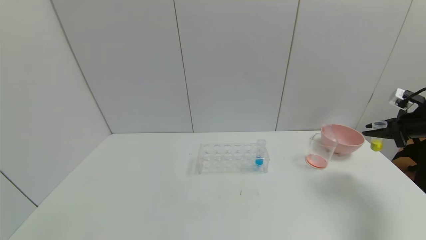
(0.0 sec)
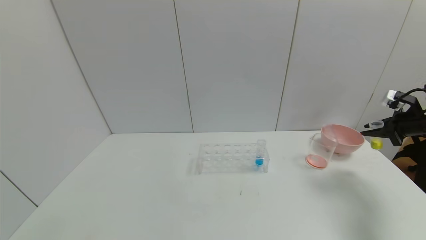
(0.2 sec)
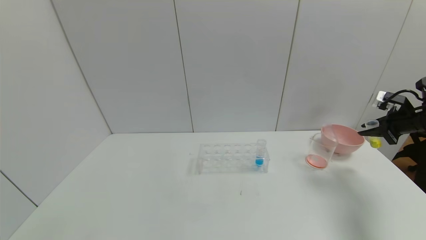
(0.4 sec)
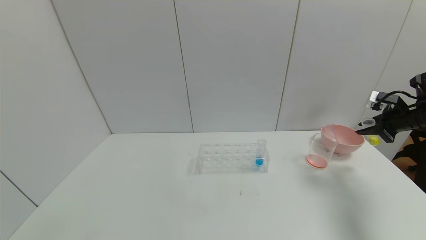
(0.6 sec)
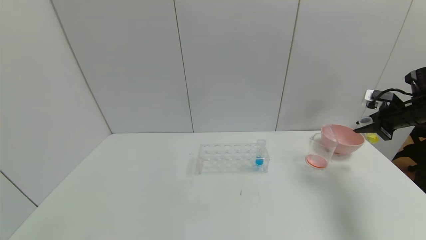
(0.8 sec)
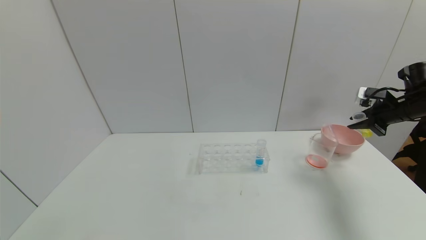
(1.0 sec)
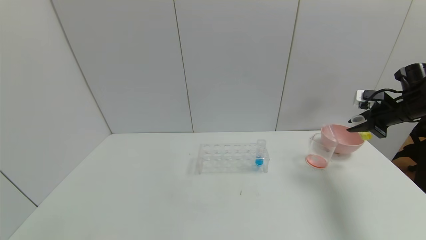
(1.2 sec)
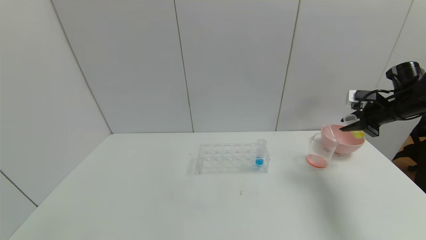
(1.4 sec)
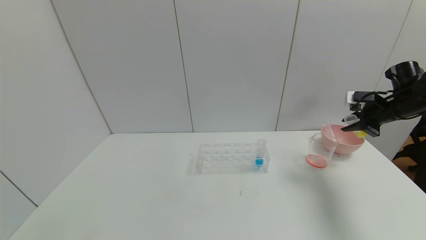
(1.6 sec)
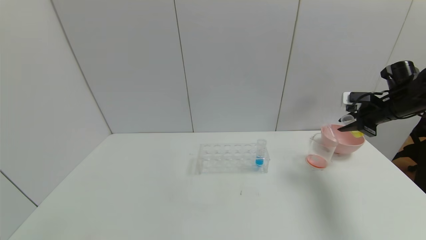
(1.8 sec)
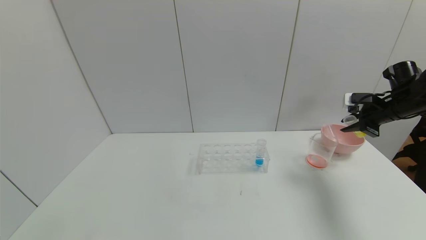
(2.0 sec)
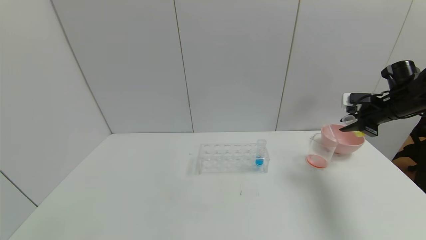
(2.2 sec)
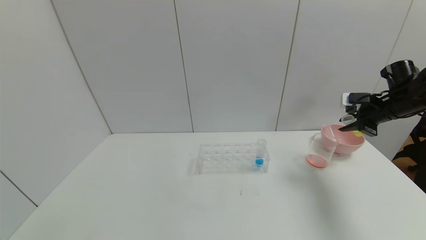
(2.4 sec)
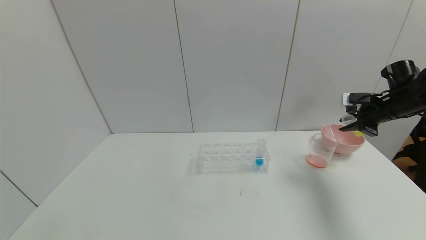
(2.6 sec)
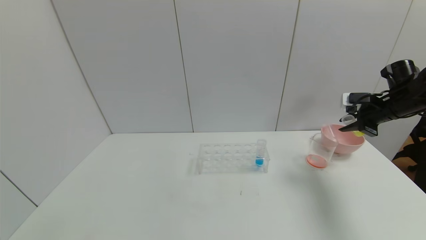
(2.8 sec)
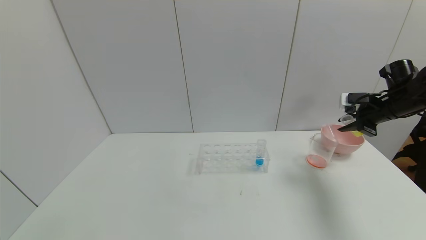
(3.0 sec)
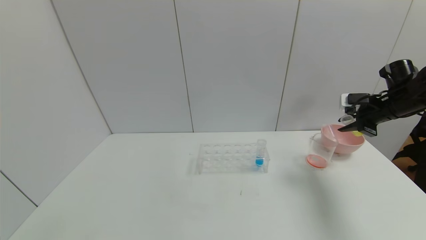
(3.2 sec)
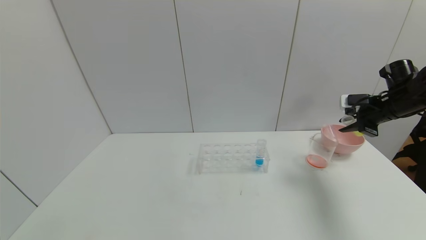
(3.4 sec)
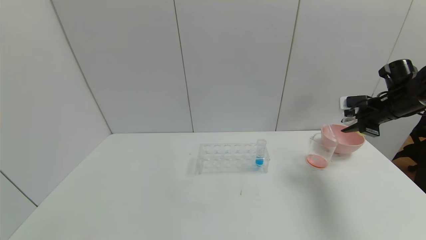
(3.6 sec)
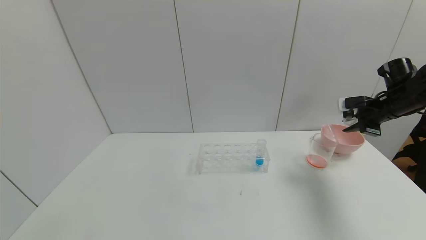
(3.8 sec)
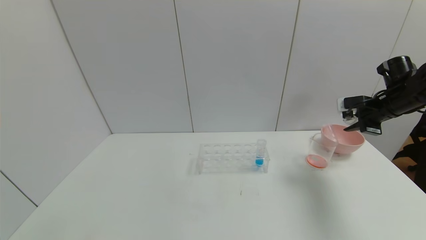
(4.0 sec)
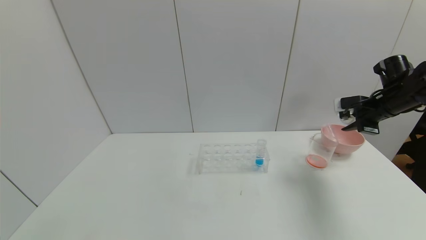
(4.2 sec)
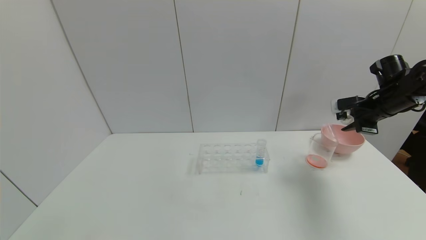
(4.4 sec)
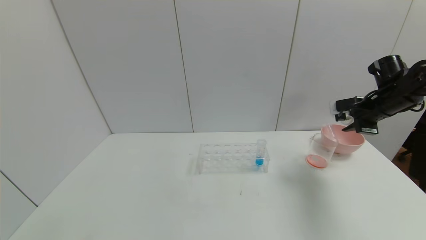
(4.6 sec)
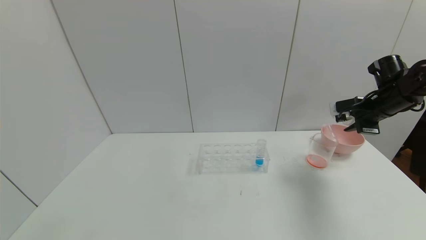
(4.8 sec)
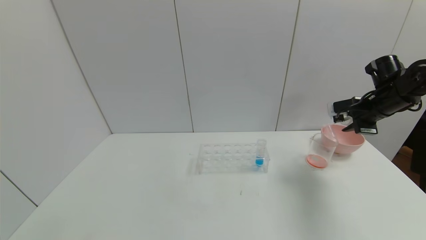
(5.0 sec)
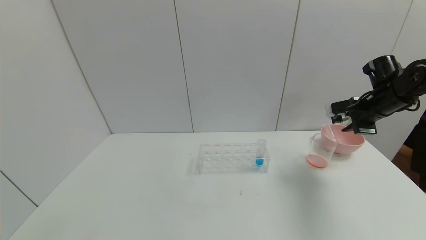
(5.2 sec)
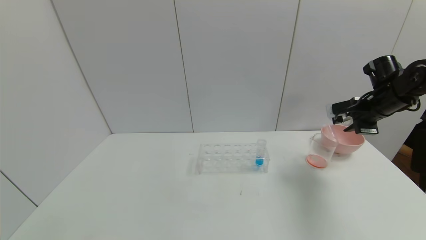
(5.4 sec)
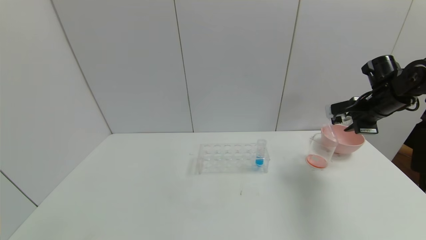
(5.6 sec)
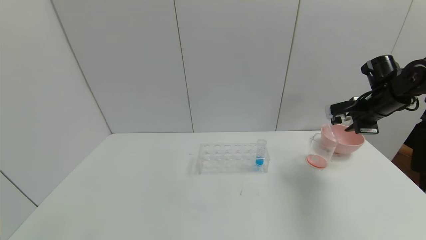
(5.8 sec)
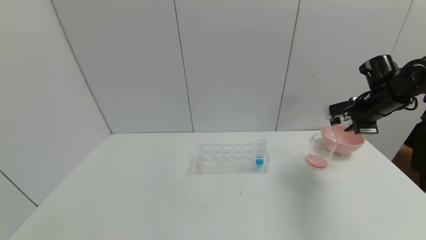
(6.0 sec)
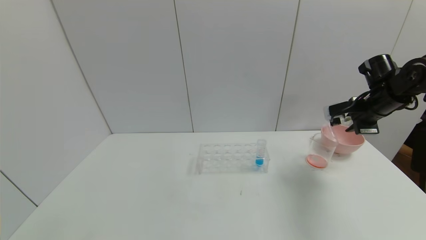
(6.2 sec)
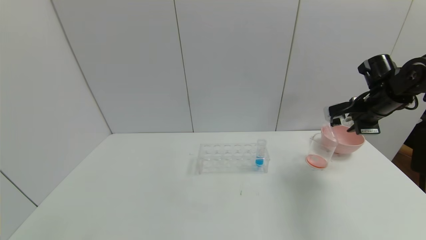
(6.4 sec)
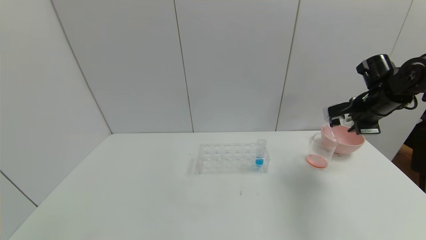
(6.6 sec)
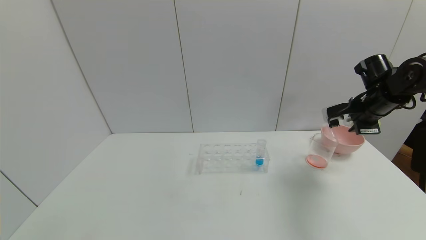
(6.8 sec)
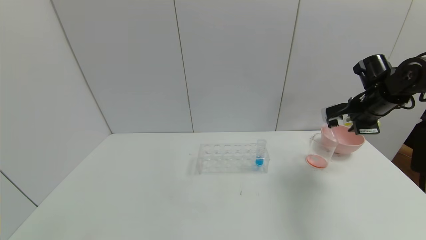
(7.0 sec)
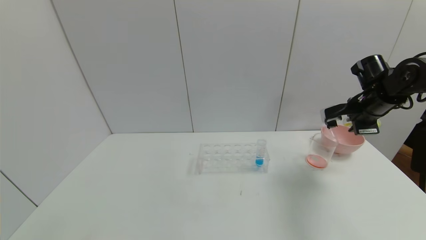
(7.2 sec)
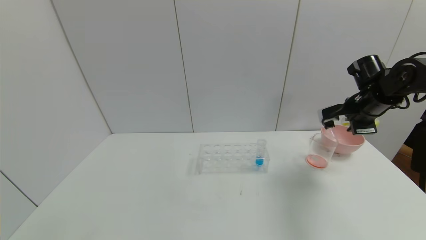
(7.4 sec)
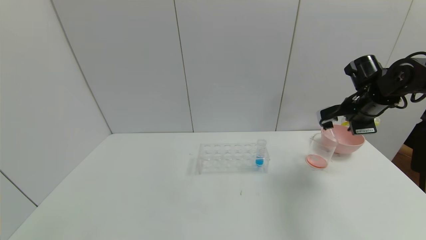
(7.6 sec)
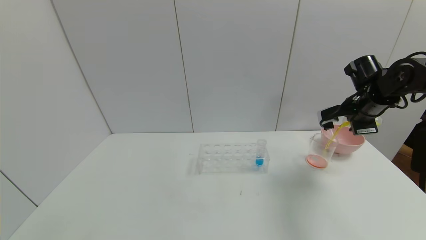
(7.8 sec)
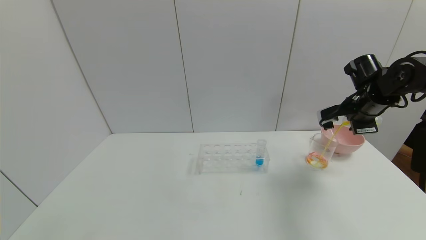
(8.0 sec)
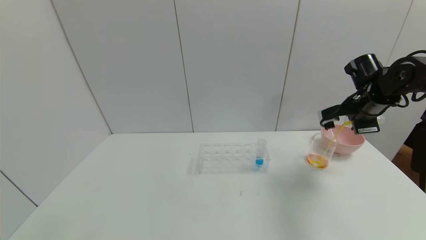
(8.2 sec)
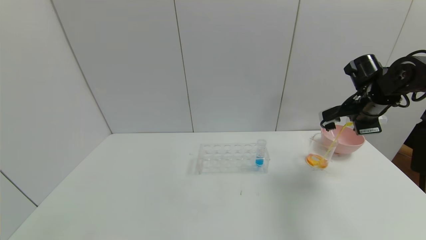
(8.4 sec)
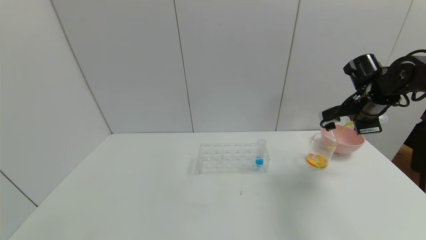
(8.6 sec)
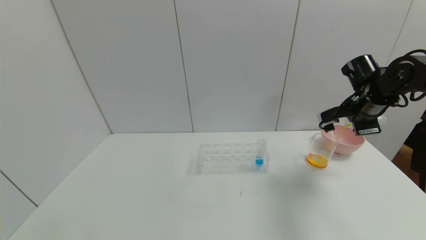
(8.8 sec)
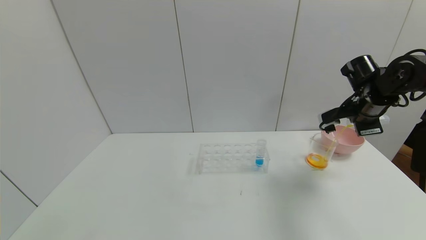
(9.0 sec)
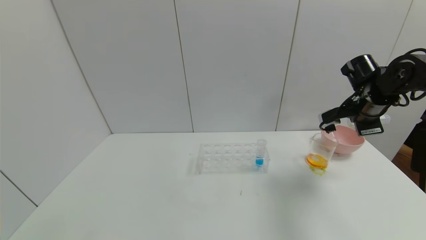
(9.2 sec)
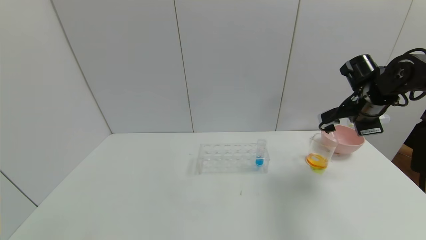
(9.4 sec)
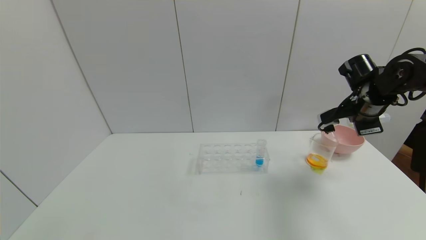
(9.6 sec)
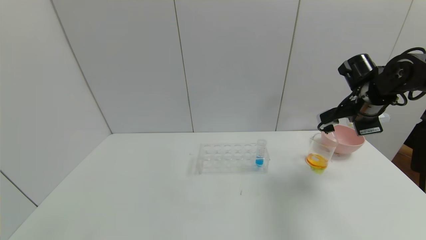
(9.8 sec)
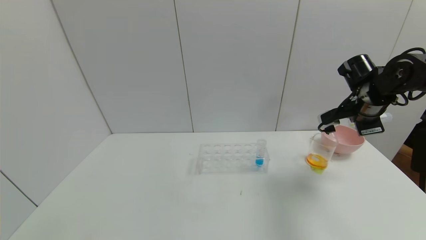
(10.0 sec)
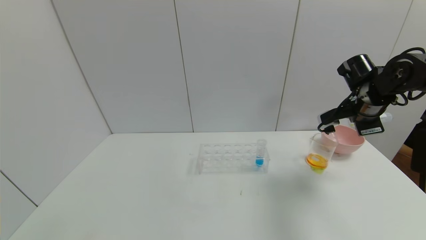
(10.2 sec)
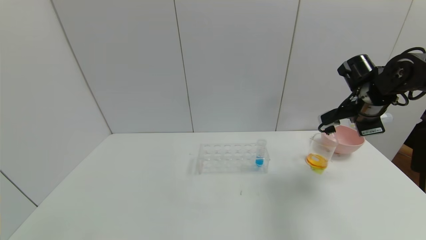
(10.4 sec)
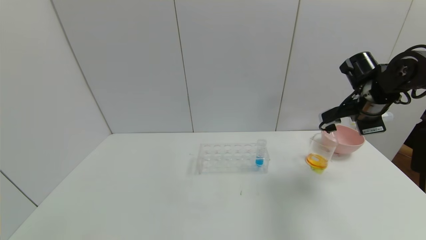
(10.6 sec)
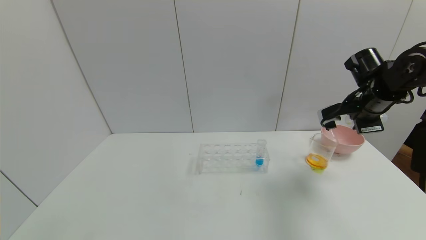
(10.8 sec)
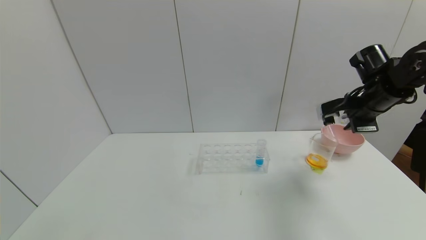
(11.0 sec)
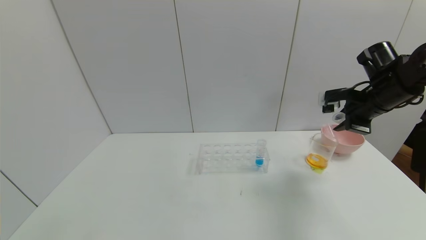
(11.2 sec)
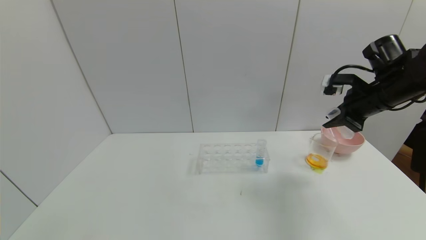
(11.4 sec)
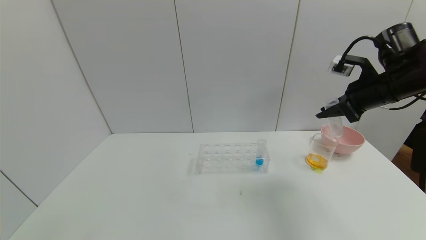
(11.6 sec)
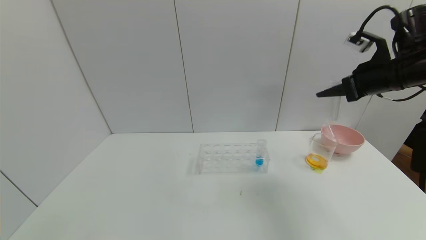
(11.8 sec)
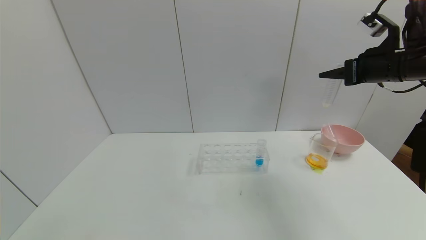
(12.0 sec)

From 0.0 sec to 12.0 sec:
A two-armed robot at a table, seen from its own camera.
Task of the whole recording: pick up the test tube with yellow pigment and the test tube with red pigment by grippers and pour them into the beaker.
Step, from 0.0 sec to 9.4 sec: Pour the yellow reagent into the graduated cylinder with the right gripper.
From 0.0 sec to 1.6 sec: The right gripper heads to the left and forward, covering some 10 cm.
From 1.6 sec to 3.0 sec: Both grippers stay about where they are.
From 3.0 sec to 4.4 sec: The grippers move only a little.
From 4.4 sec to 6.0 sec: The grippers stay close to where they were, moving slightly.
From 6.0 sec to 9.0 sec: There are only small adjustments of the grippers.
From 9.0 sec to 10.4 sec: Both grippers stay put.
From 10.4 sec to 12.0 sec: The right gripper goes some 10 cm upward.

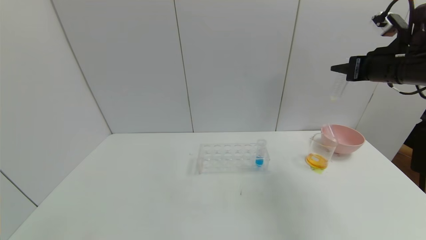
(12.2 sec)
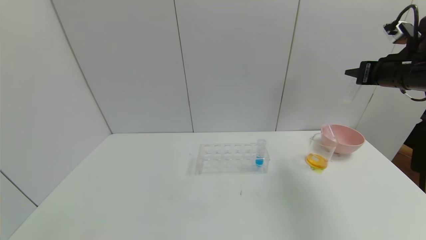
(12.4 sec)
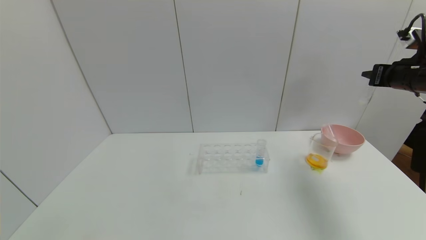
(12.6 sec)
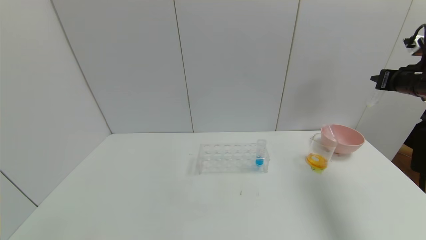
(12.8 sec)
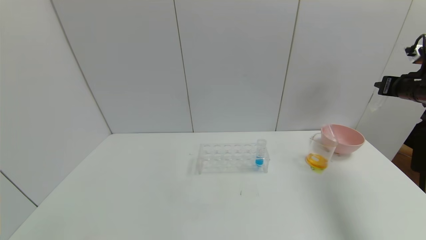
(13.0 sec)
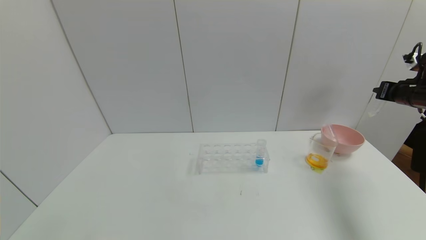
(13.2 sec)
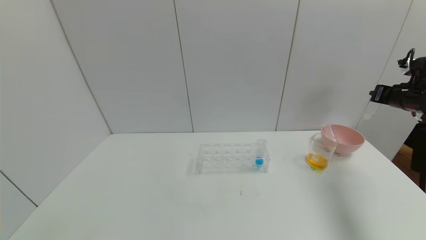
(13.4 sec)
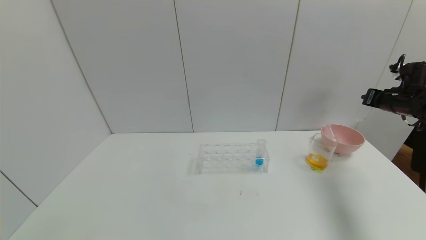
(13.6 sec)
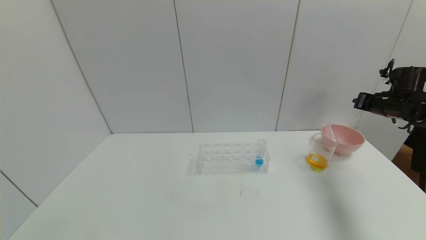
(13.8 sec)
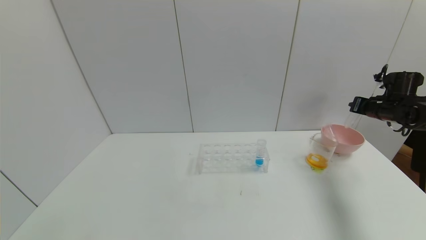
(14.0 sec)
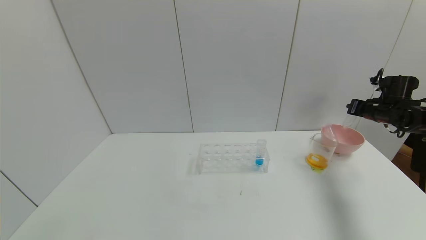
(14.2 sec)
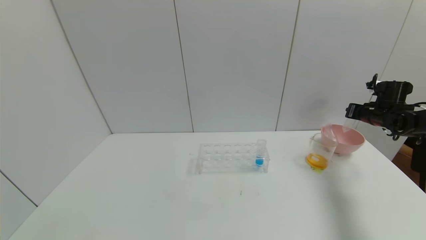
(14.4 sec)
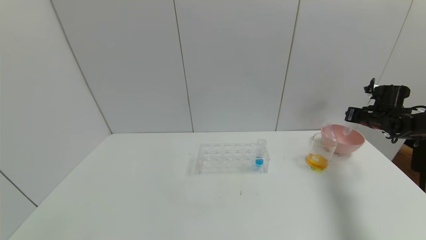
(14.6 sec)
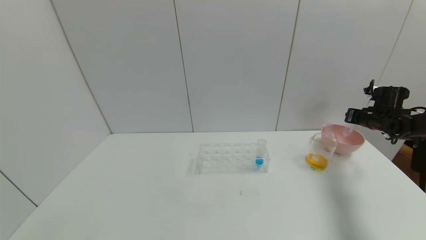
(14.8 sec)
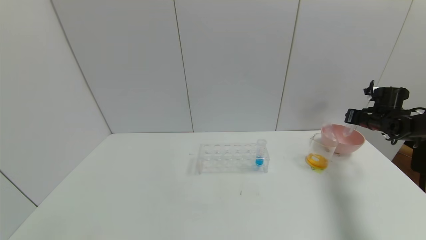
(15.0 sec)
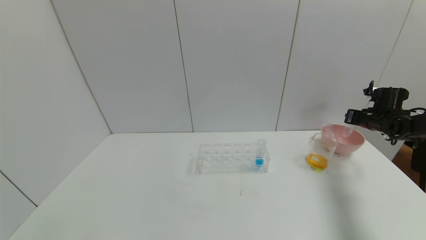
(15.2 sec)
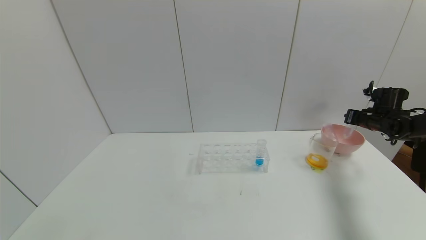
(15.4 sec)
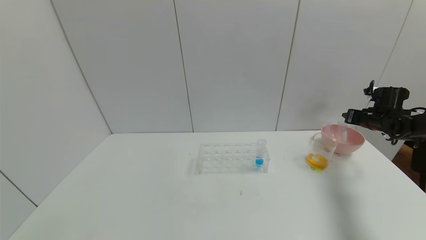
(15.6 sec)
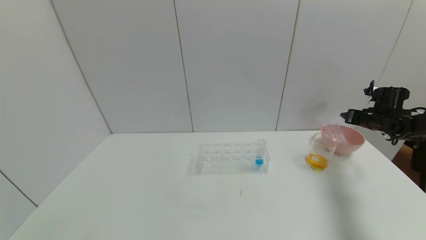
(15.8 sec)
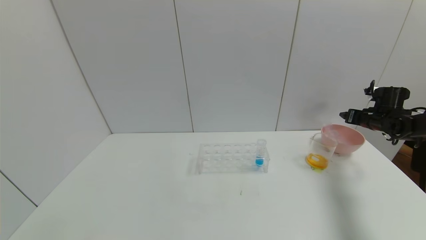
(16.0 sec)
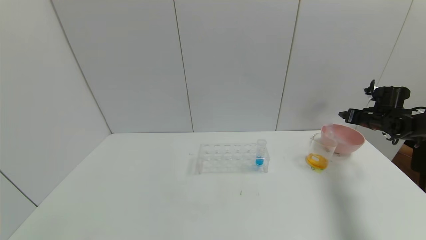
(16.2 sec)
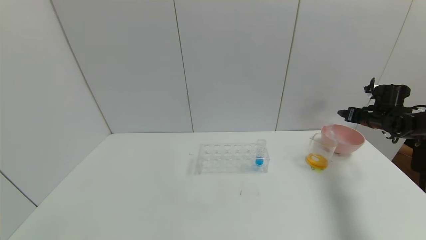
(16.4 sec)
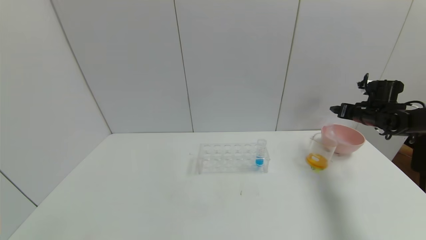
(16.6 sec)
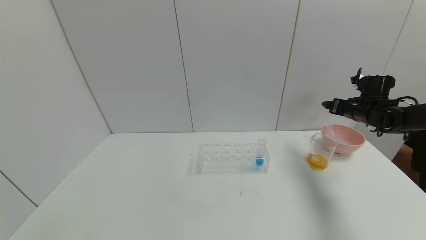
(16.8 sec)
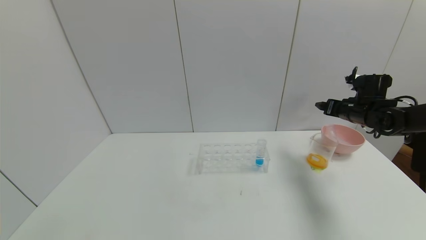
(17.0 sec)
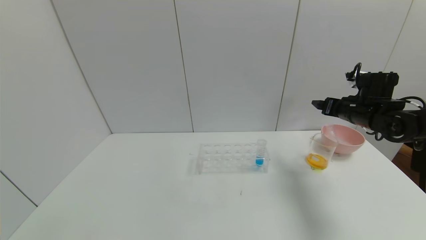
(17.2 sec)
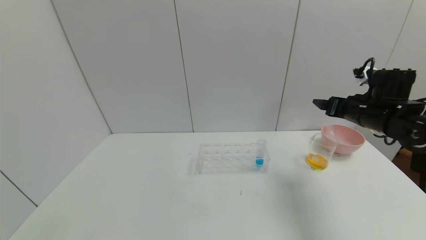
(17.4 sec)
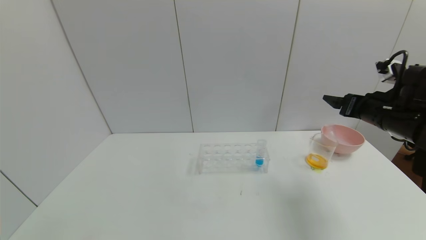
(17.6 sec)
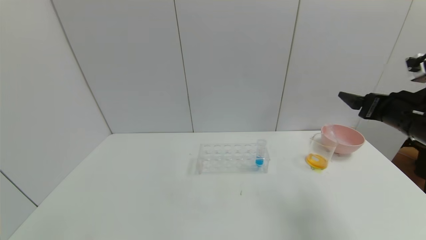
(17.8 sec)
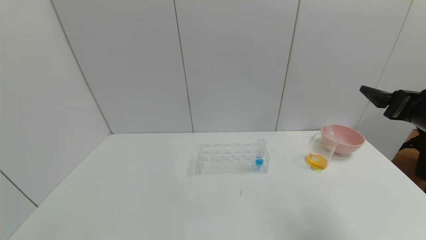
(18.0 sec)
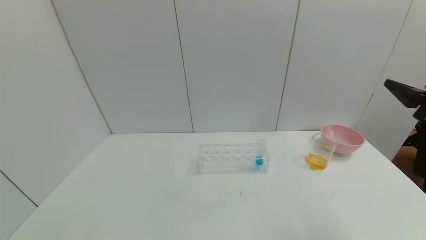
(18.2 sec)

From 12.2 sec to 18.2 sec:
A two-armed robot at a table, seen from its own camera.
Task of the whole recording: pick up the test tube with yellow pigment and the test tube with red pigment by grippers and pour them into the beaker.
Step, from 12.2 sec to 16.6 sec: Place the test tube into the bowl with the right gripper.
From 12.2 sec to 13.8 sec: The right gripper travels downward, to the right and forward by some 20 cm.
From 13.8 sec to 15.2 sec: The right gripper is displaced downward by approximately 5 cm.
From 15.2 sec to 16.6 sec: The right gripper opens its fingers.
From 16.6 sec to 18.2 sec: The right gripper heads backward, covering approximately 30 cm.
